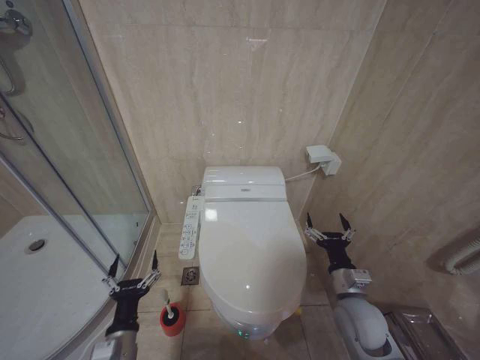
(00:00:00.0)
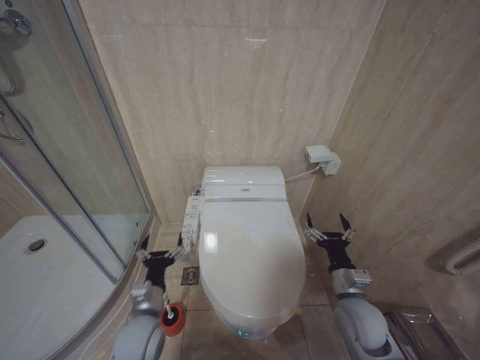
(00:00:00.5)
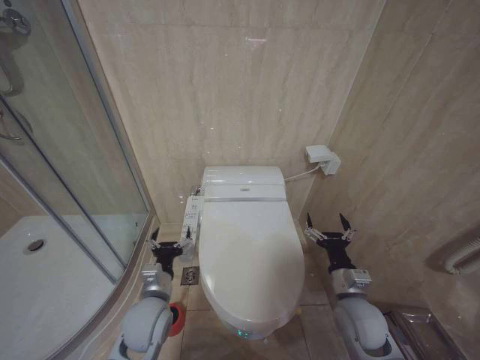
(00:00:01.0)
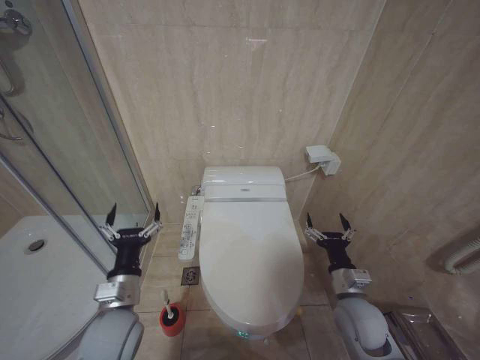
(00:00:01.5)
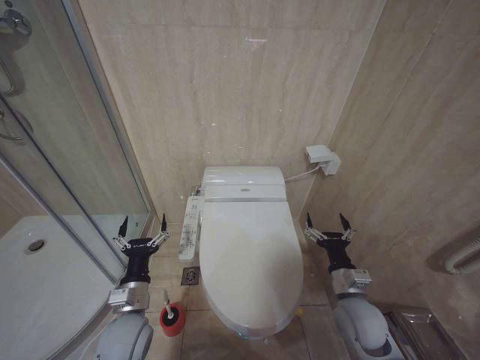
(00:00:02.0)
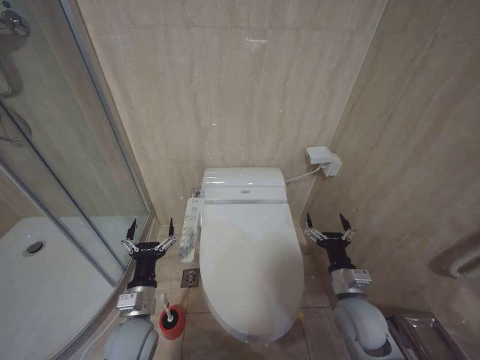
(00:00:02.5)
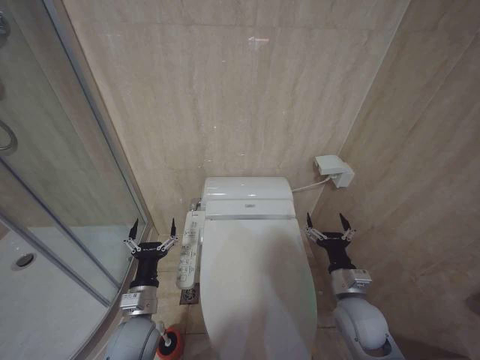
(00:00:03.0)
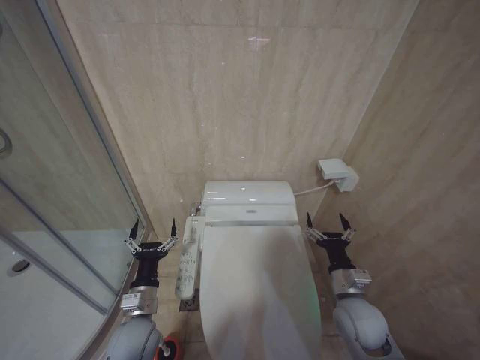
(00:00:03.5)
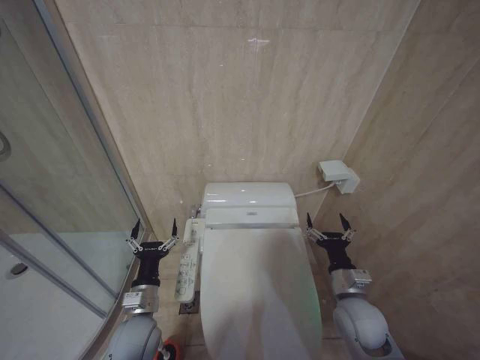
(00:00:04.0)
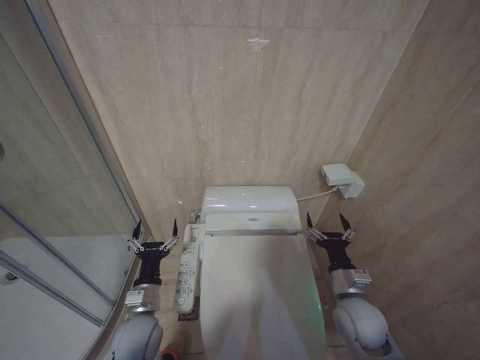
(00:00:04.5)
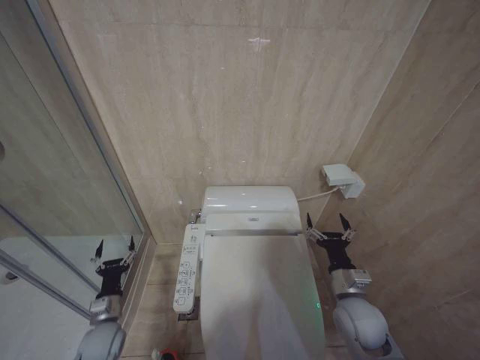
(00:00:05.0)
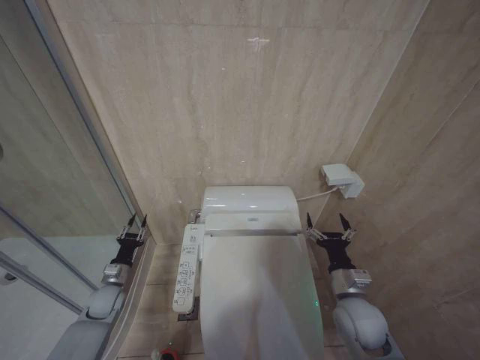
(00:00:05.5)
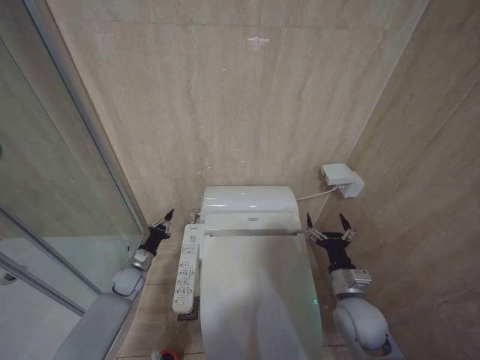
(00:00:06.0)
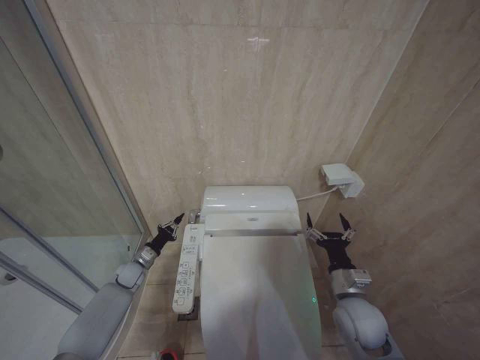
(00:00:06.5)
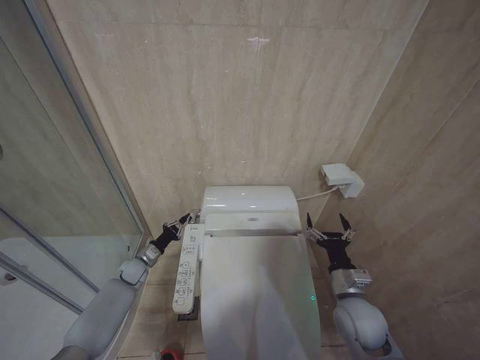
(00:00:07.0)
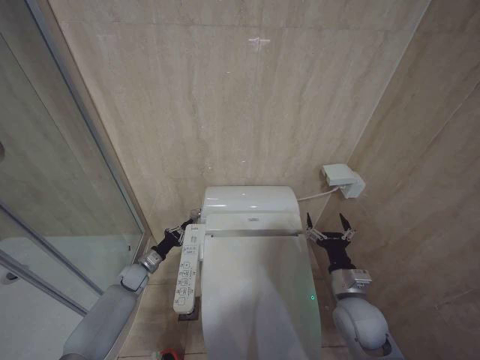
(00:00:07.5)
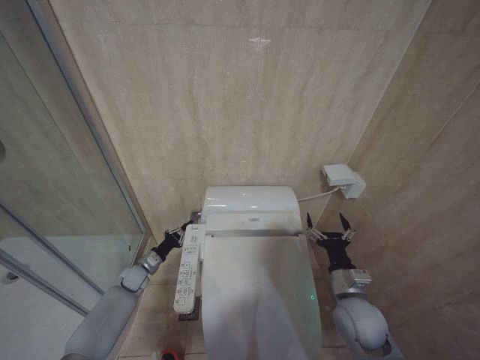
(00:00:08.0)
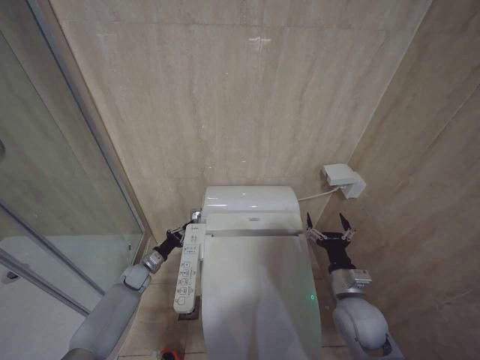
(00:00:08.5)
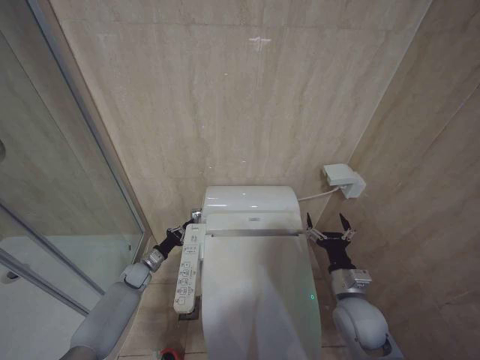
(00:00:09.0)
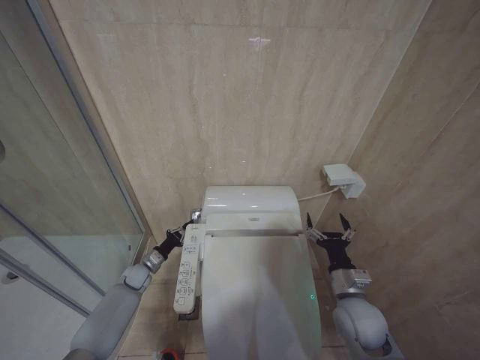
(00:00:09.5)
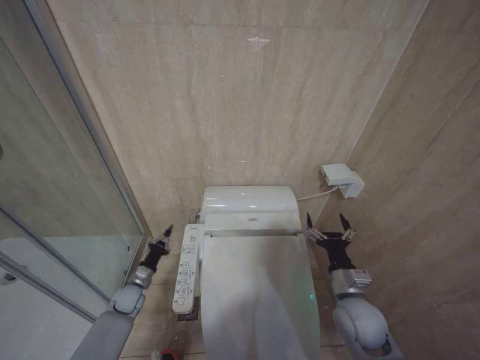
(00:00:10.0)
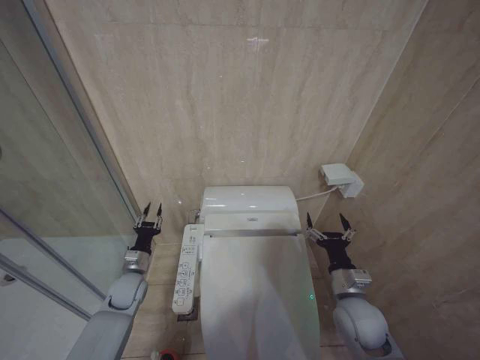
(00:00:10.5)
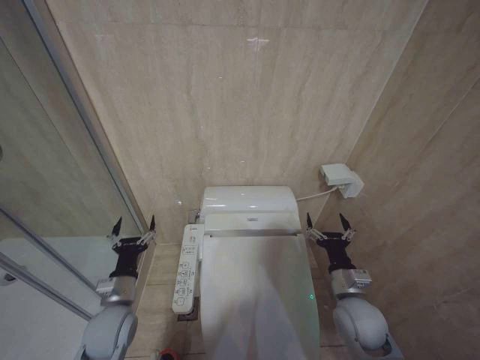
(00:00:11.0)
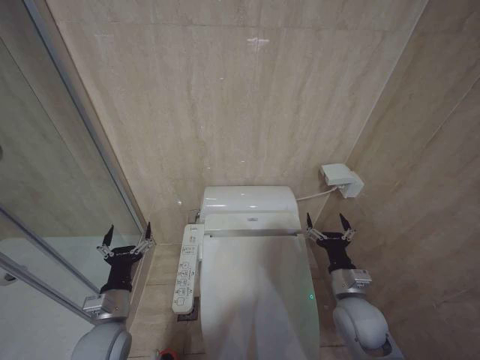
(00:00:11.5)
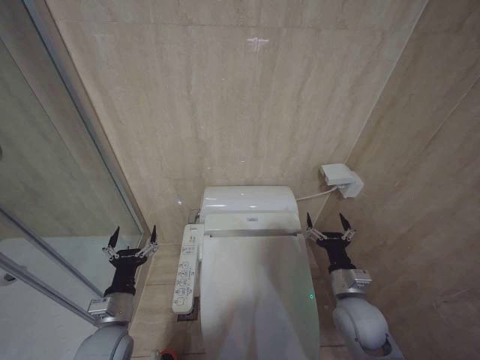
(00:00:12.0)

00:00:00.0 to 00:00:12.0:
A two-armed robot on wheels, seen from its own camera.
Task of the whole recording: Open the toilet lid, clean the toilet bowl with a toilet brush, close the toilet lid, and flush.
00:00:00.0 to 00:00:02.0: The left gripper travels forward by roughly 10 cm, and moves some 10 cm upward and comes back.
00:00:02.0 to 00:00:04.0: There are only small adjustments of the grippers.
00:00:04.0 to 00:00:06.0: The left gripper shifts roughly 25 cm forward, to the left and downward, and closes up.
00:00:08.0 to 00:00:10.0: The left gripper moves backward, some 5 cm.
00:00:10.0 to 00:00:12.0: The left gripper shifts about 25 cm backward, upward and to the right, and opens.
